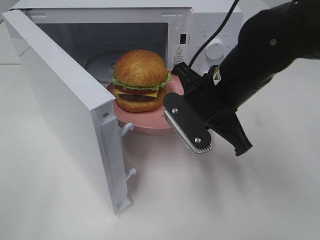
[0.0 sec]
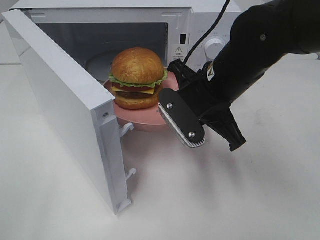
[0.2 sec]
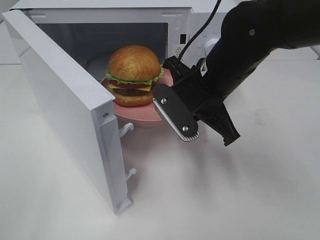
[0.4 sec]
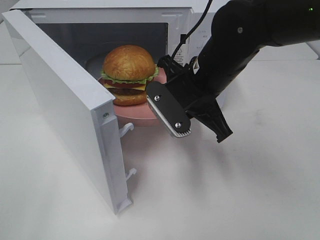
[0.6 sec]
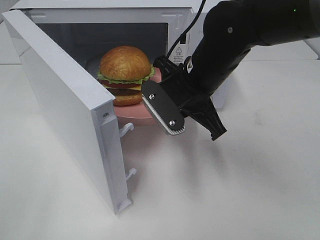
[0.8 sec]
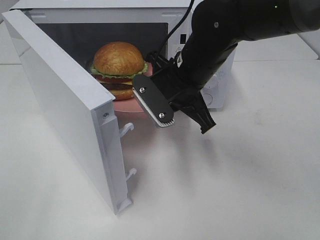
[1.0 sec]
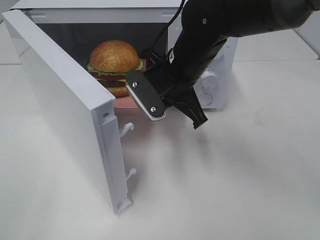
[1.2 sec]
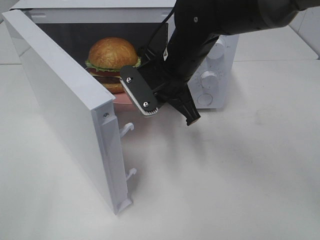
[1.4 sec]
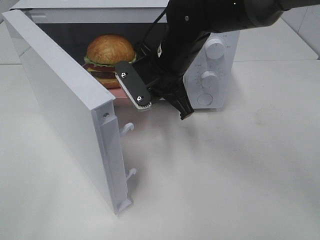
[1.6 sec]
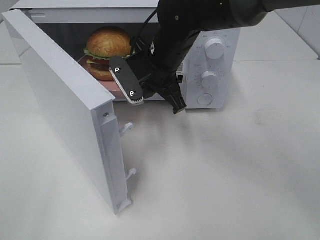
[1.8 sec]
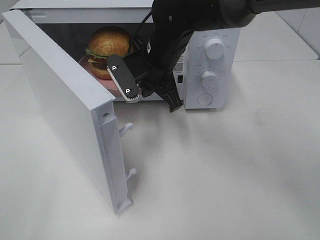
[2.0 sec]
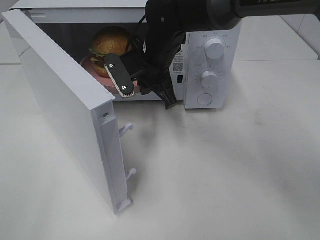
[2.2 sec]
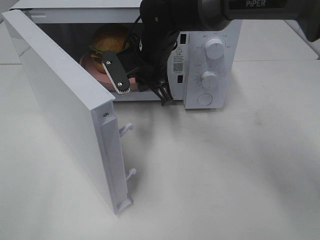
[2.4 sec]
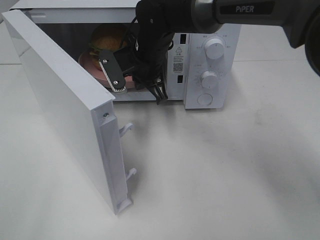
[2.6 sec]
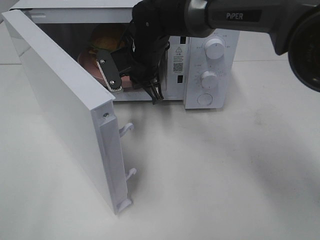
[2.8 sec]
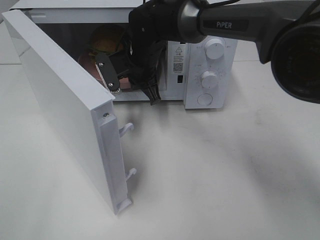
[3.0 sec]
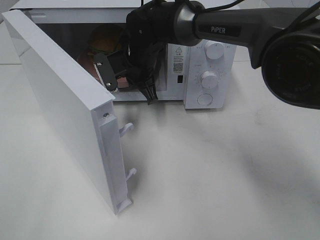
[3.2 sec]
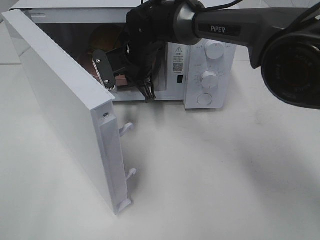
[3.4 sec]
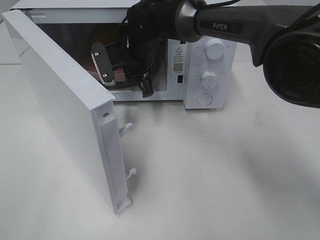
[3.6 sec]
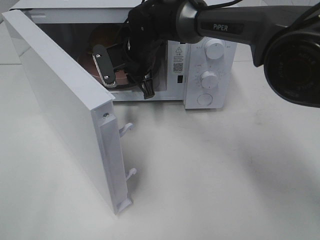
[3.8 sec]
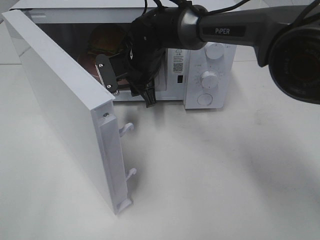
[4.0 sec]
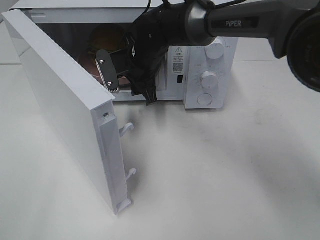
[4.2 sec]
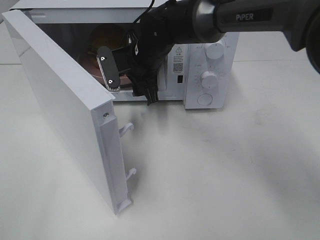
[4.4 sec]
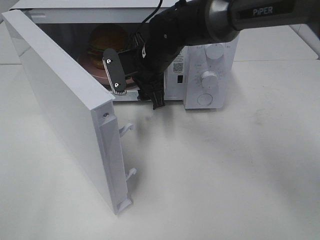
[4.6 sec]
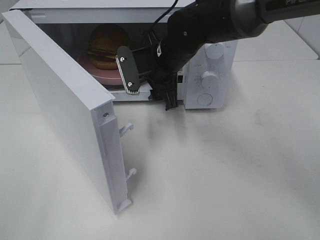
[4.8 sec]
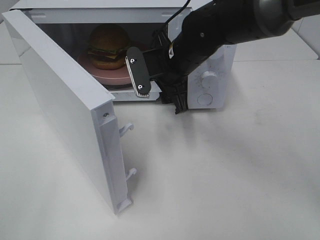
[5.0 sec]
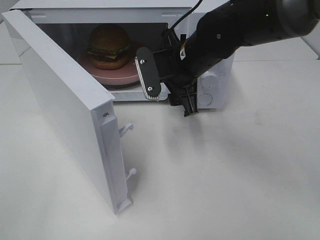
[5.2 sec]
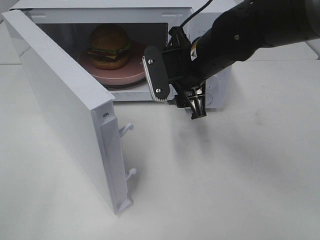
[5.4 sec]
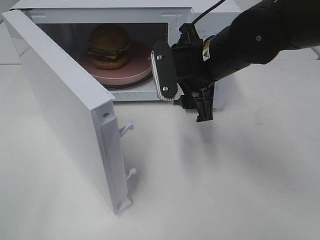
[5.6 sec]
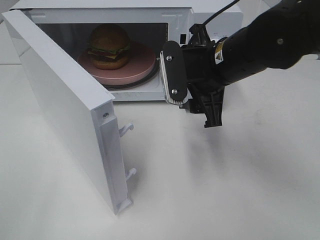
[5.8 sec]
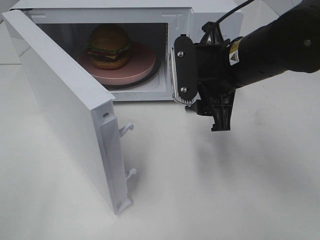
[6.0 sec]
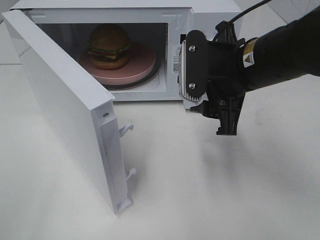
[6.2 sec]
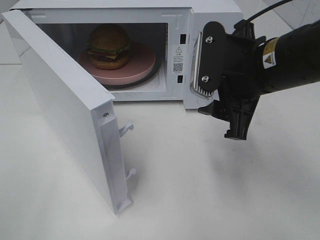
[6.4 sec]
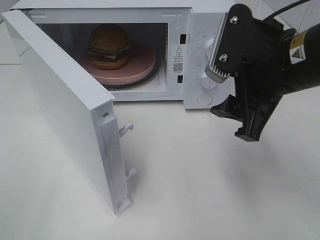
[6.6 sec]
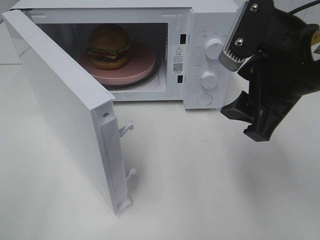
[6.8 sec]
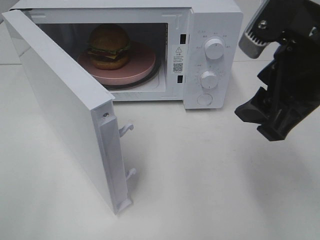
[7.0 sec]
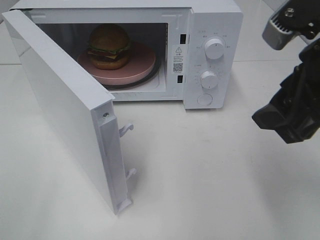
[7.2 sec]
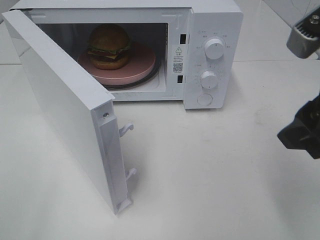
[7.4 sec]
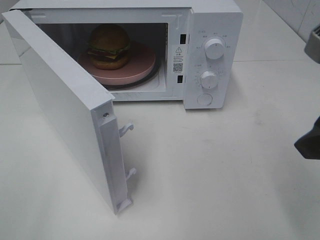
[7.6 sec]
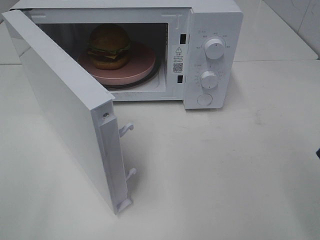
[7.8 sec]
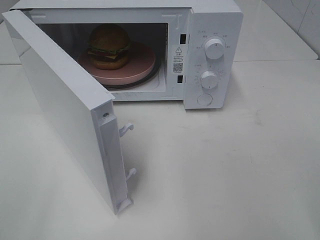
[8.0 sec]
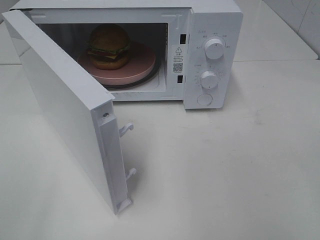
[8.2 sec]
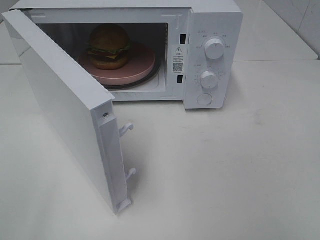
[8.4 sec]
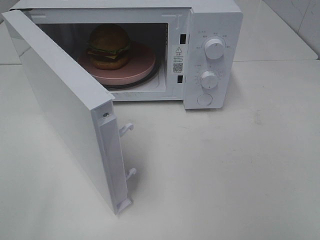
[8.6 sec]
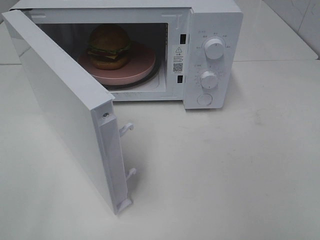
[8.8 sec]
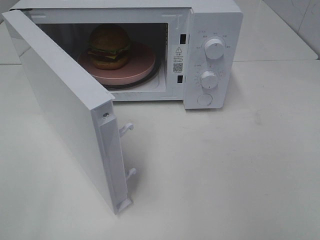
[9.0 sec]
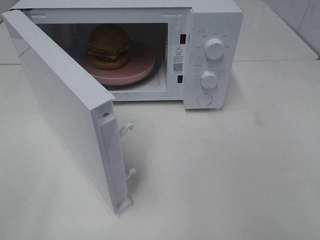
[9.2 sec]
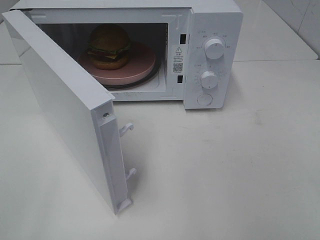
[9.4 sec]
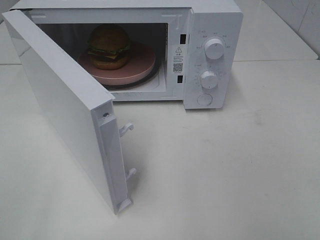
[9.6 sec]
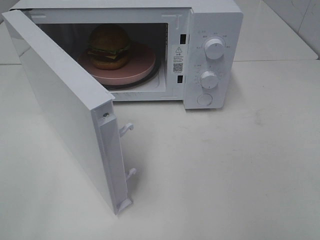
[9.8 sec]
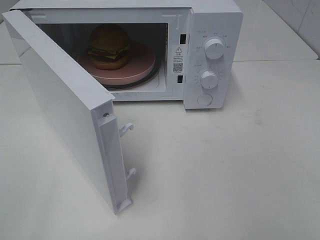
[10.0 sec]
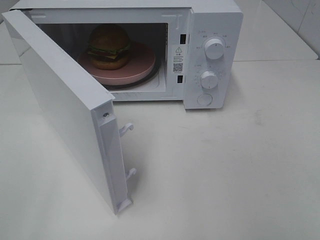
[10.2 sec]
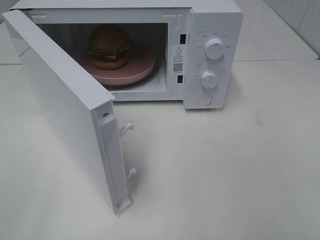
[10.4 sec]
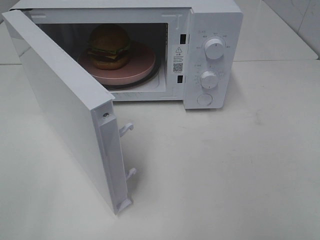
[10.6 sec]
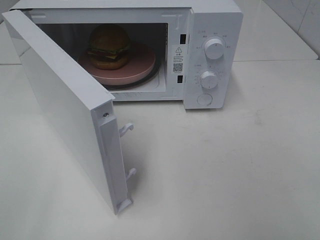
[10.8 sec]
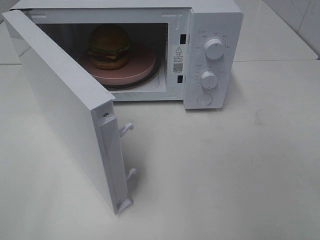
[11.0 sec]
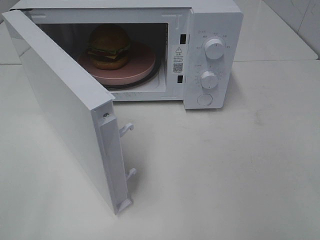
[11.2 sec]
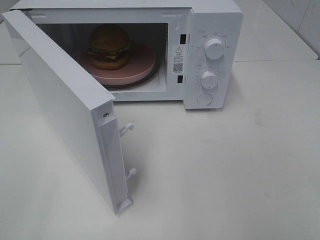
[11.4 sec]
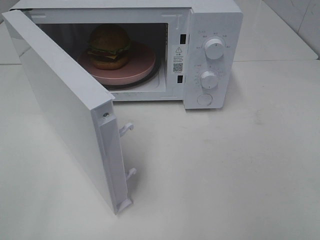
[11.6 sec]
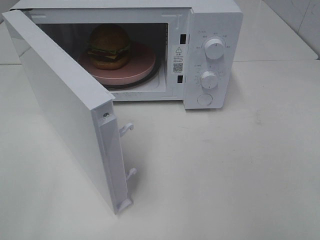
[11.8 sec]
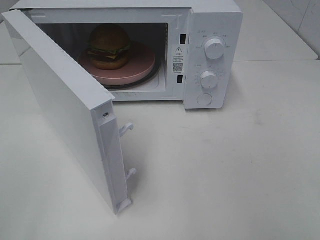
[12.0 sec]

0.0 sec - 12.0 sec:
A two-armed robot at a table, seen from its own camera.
Task of the whole recording: Heat the burger.
Step, 0.0 sec - 4.8 sec: Right hand: place the plate in the microwave.
0.0 sec - 1.6 sec: The right gripper moves forward and to the left, approximately 10 cm.
1.6 sec - 3.0 sec: The right gripper travels forward and to the left by approximately 10 cm.
3.0 sec - 4.4 sec: The right gripper opens.
4.4 sec - 6.0 sec: The right gripper heads backward, to the right and upward, covering about 20 cm.
6.0 sec - 7.6 sec: The right gripper travels backward, to the right and upward by about 20 cm.
7.6 sec - 9.0 sec: The right gripper is displaced backward and to the right by roughly 15 cm.

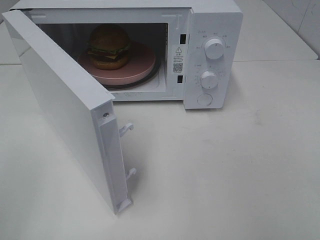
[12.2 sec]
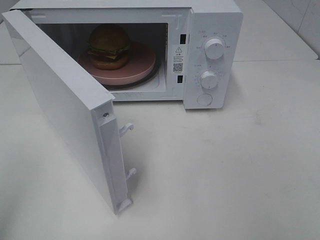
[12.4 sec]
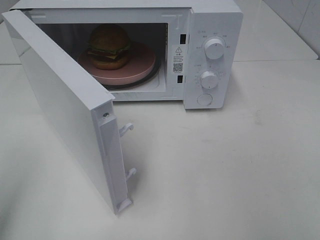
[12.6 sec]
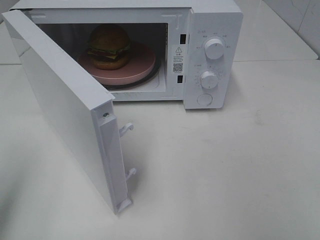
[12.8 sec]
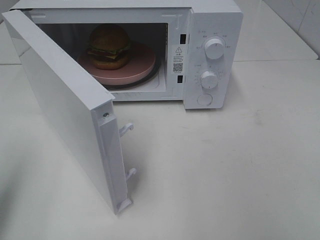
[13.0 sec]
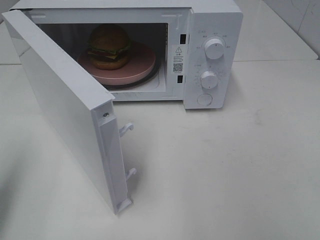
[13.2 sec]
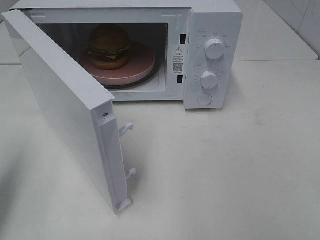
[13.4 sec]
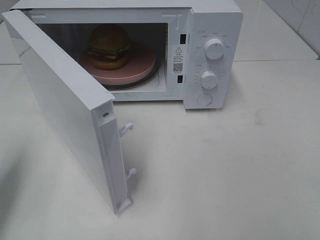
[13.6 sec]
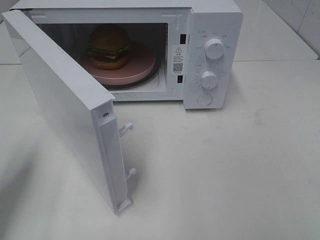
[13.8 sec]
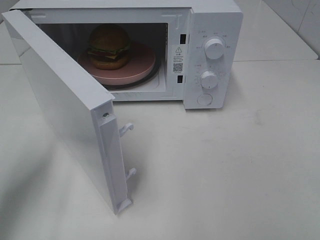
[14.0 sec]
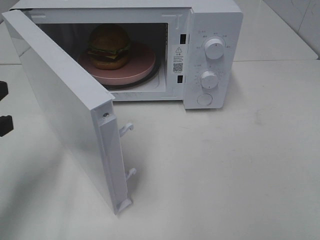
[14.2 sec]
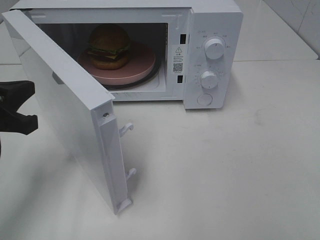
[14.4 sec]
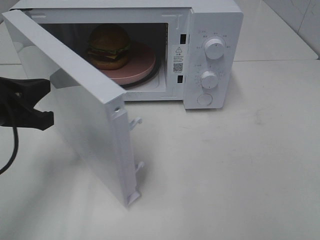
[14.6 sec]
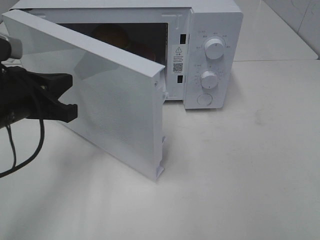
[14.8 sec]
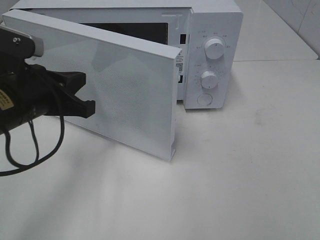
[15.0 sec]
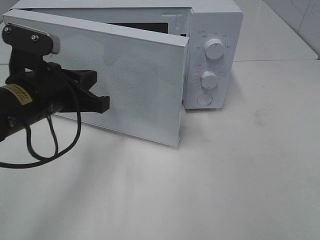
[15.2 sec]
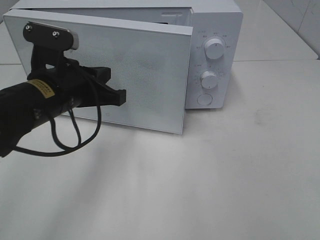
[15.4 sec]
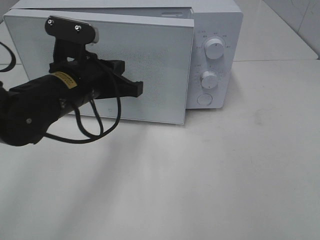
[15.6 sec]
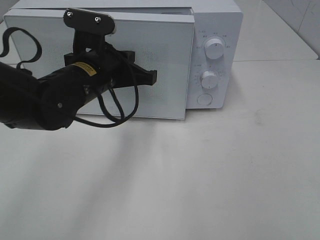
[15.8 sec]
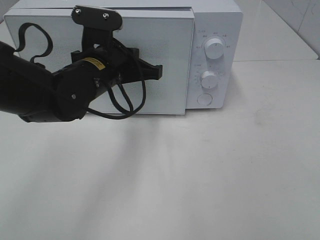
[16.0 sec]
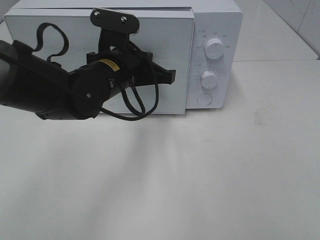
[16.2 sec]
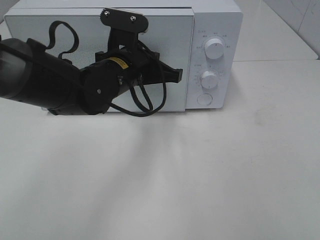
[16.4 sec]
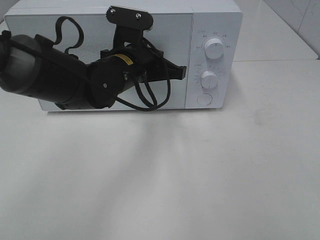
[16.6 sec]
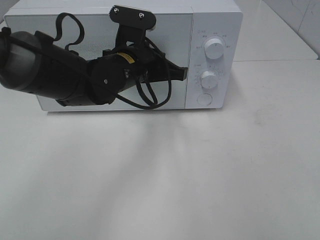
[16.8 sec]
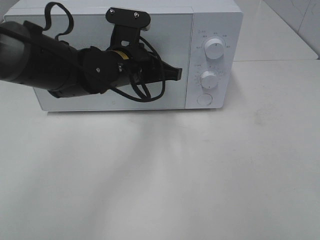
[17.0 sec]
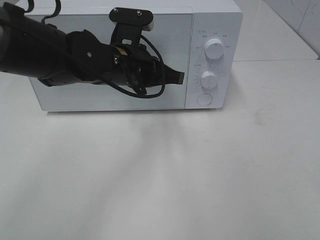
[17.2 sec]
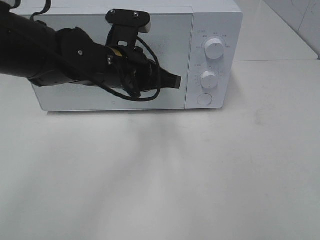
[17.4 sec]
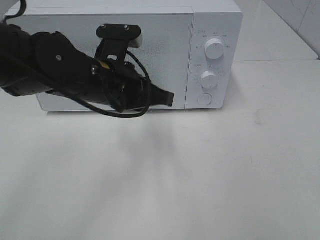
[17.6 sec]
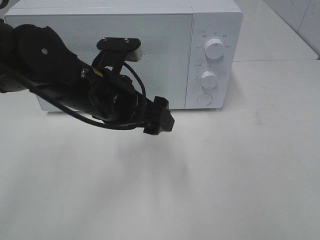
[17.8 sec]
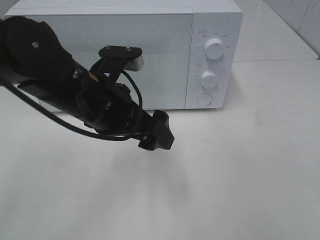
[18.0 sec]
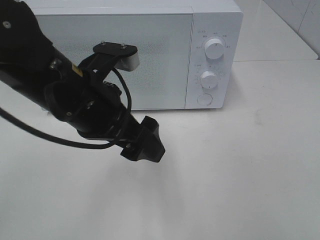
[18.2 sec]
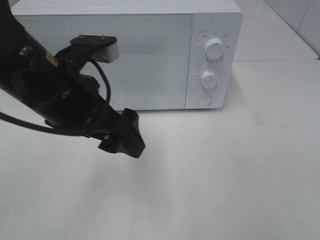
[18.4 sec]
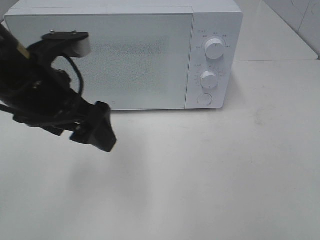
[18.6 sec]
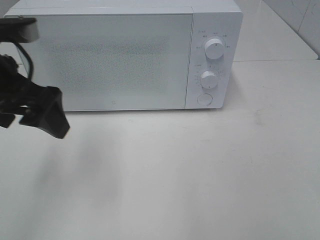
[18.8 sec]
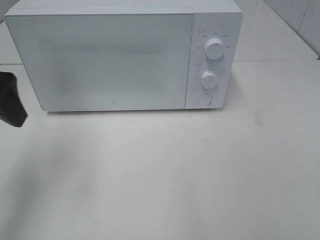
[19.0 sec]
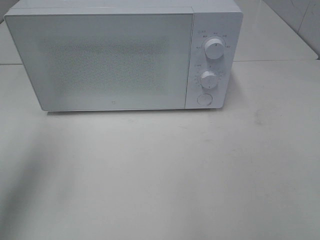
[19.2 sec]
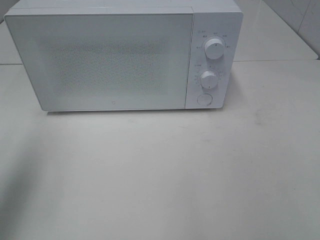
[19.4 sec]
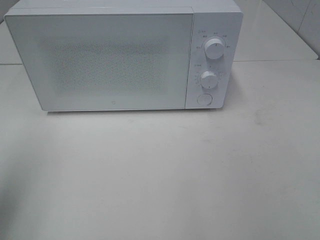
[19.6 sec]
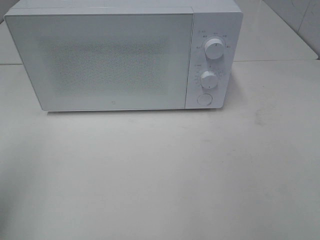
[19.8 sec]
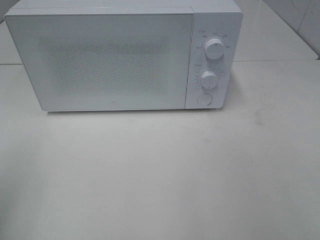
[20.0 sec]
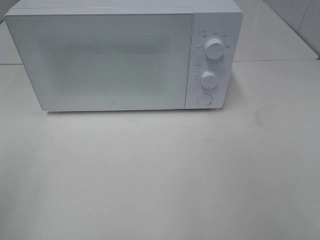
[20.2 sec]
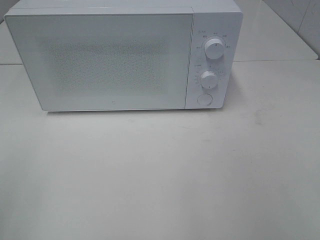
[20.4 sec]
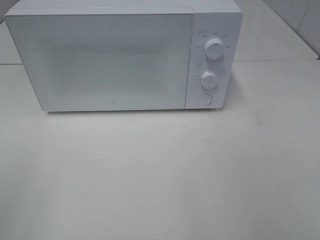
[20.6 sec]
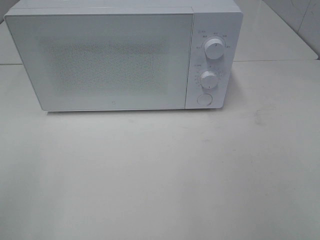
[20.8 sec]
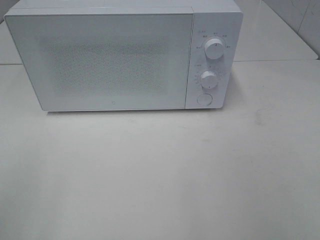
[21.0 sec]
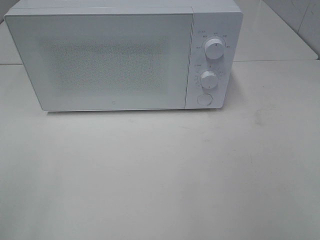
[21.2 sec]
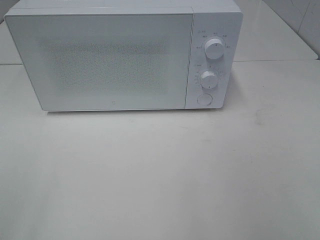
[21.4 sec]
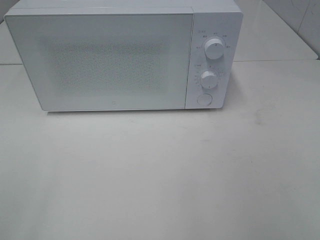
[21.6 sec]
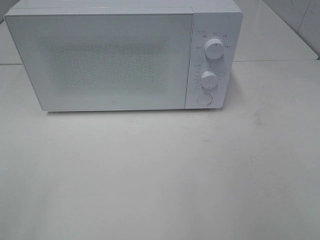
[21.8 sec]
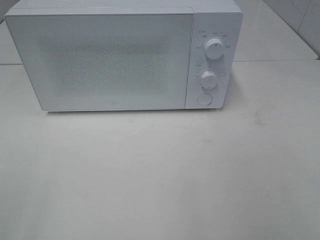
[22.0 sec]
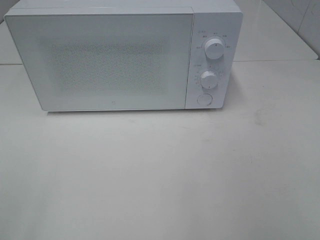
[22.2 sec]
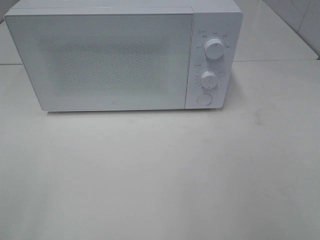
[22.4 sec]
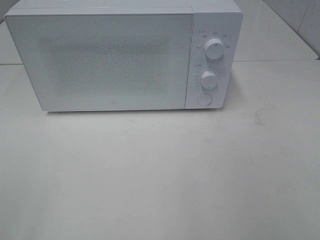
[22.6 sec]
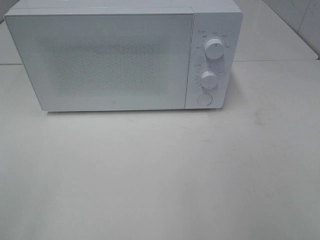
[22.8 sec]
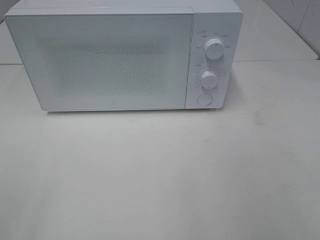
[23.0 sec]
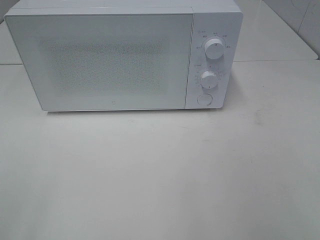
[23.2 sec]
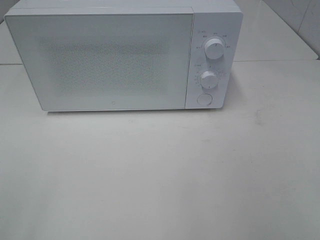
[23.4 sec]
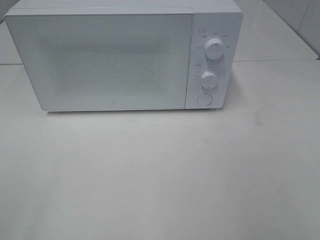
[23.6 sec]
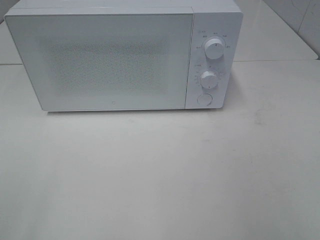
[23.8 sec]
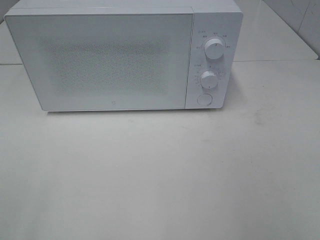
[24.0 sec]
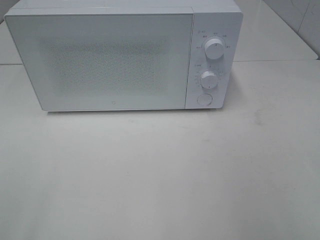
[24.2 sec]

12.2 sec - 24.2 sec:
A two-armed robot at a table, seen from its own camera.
Task of the whole recording: Heat the burger.
Step, 12.2 sec - 17.6 sec: Left hand: close the microwave door.
12.2 sec - 13.8 sec: The left gripper travels forward and downward by approximately 15 cm, and closes up.
13.8 sec - 15.2 sec: The left gripper heads to the right and forward, covering approximately 15 cm.
15.2 sec - 16.6 sec: The left gripper is displaced to the right and forward by some 15 cm.
16.6 sec - 18.2 sec: The left gripper goes some 10 cm backward, and opens its fingers.
18.2 sec - 19.8 sec: The left gripper heads to the left and backward, covering about 25 cm.
